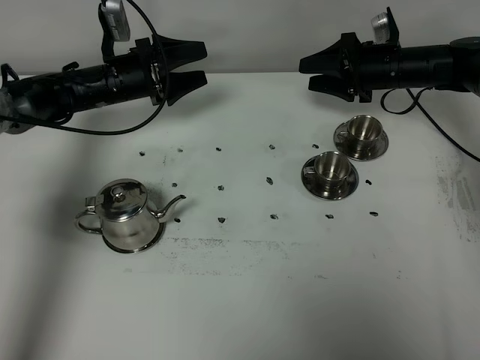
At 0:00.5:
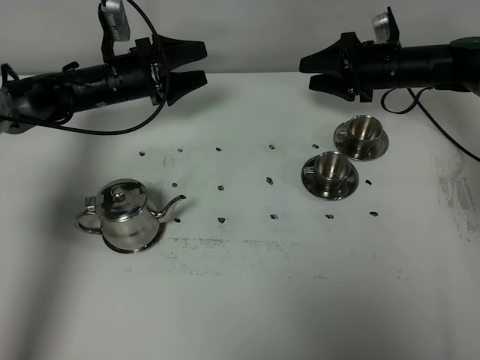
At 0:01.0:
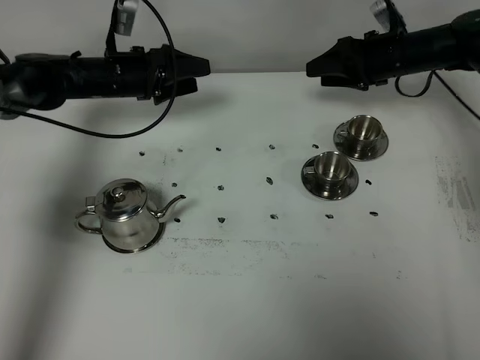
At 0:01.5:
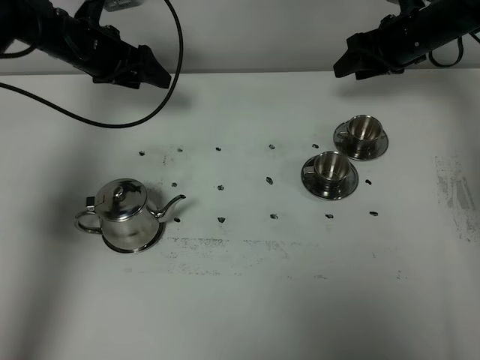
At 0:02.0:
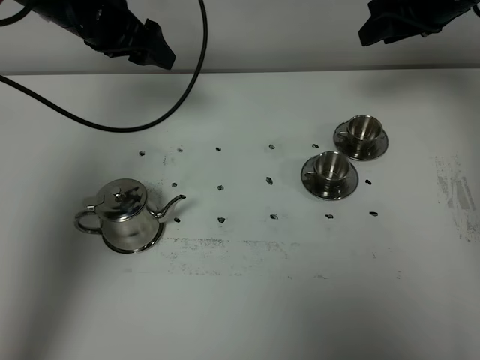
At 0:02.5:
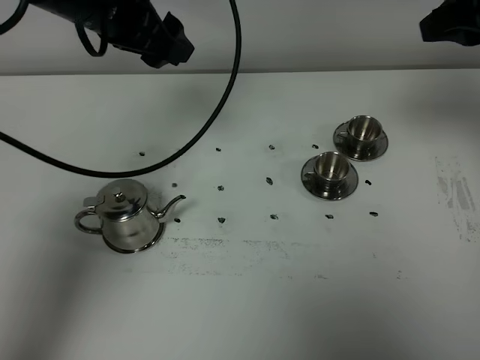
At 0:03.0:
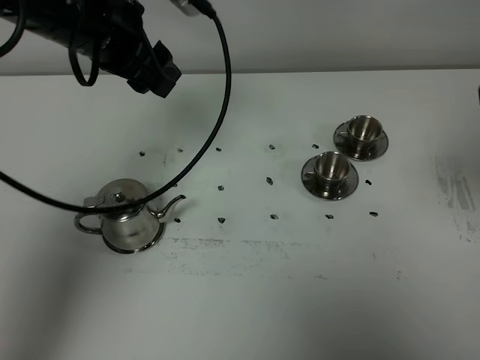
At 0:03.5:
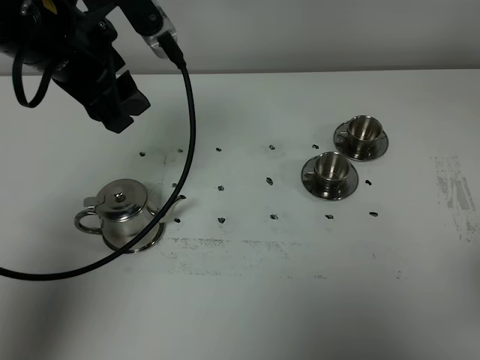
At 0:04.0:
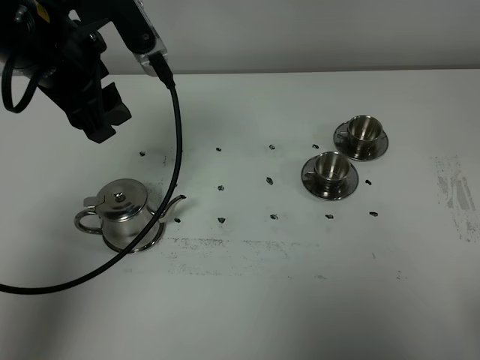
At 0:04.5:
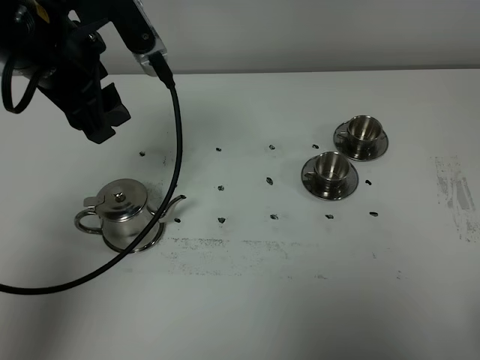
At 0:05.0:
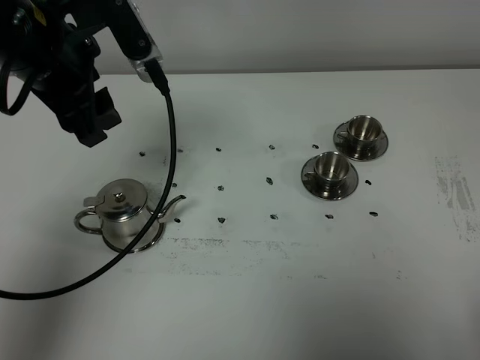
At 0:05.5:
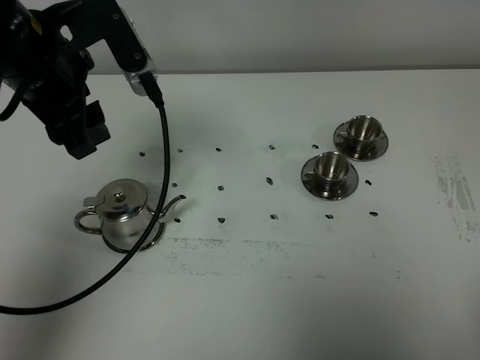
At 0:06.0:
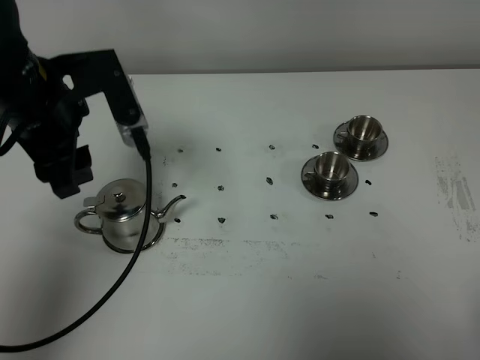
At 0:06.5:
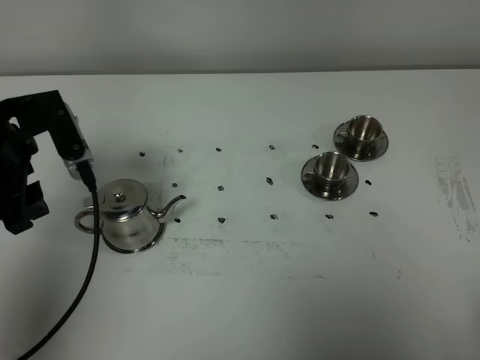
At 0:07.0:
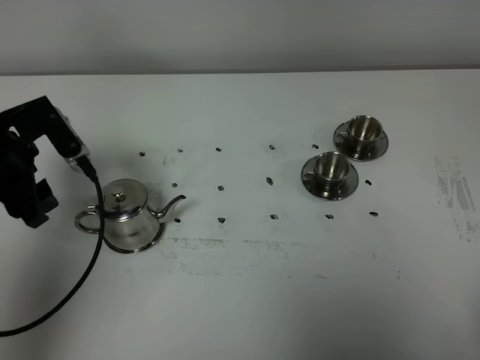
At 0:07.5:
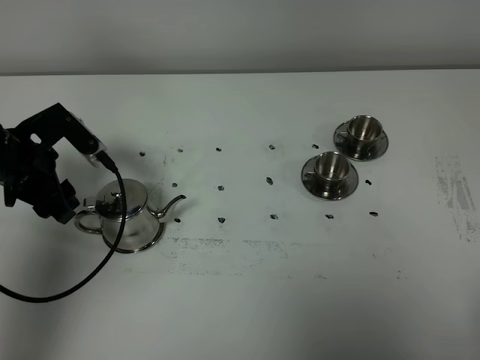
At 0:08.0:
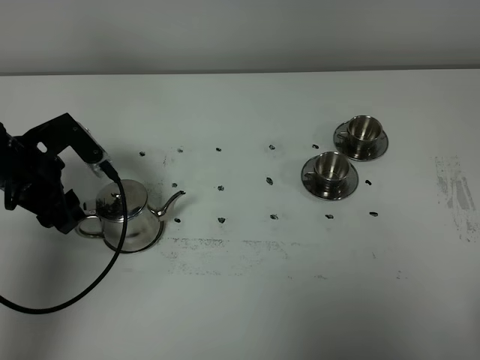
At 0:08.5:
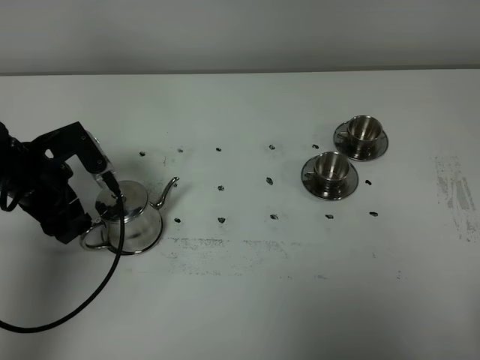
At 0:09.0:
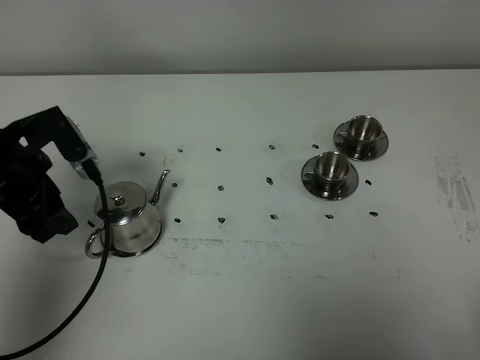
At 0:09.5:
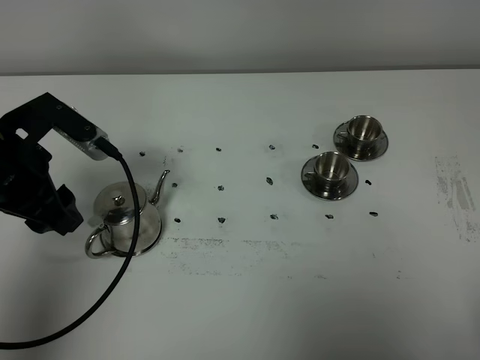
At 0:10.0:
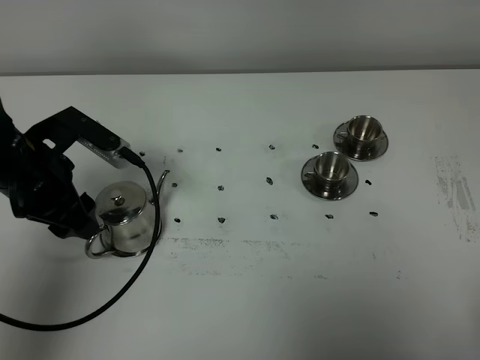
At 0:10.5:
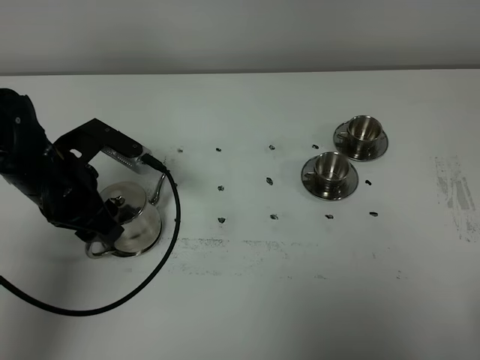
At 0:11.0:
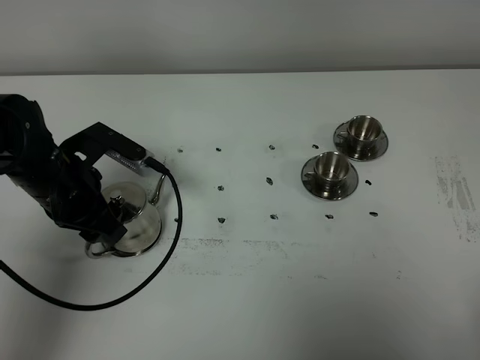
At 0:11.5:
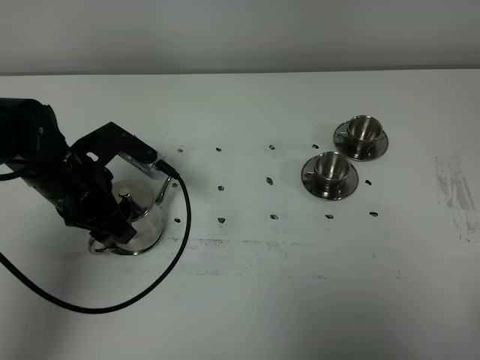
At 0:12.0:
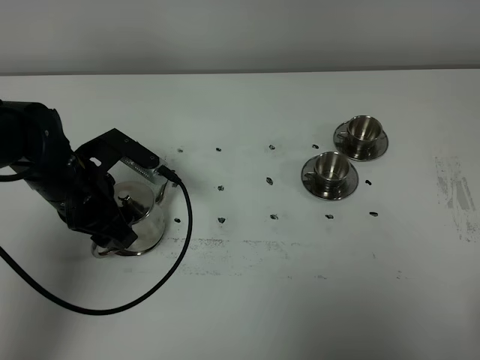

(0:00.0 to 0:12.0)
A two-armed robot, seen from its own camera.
Task of the whole recording: grasp the stainless steel teapot and pour the tea into the two stainless steel teacups one by one, put the stainless steel teapot back in its original place.
0:00.0 - 0:02.0: The grippers both shift upward by about 15 cm.
0:02.0 - 0:04.0: The left gripper goes roughly 15 cm backward and upward. The right gripper shifts approximately 40 cm backward.
0:04.0 - 0:06.0: The right gripper closes its fingers. Meanwhile the left gripper goes approximately 5 cm downward.
0:06.0 - 0:08.0: The left gripper is displaced downward and to the left by roughly 15 cm.
0:08.0 - 0:10.0: The left gripper shifts by about 10 cm.
0:10.0 - 0:12.0: The left gripper ends up roughly 5 cm from where it was.

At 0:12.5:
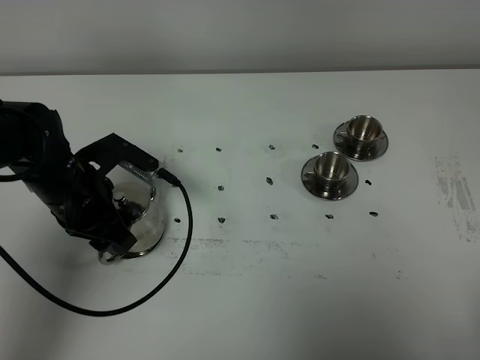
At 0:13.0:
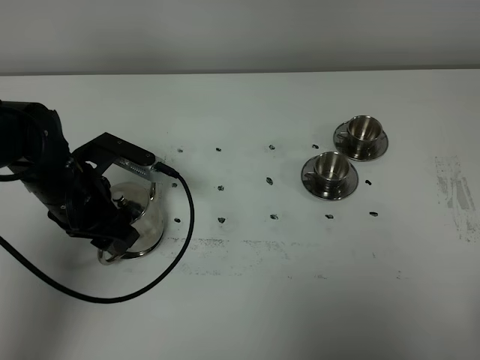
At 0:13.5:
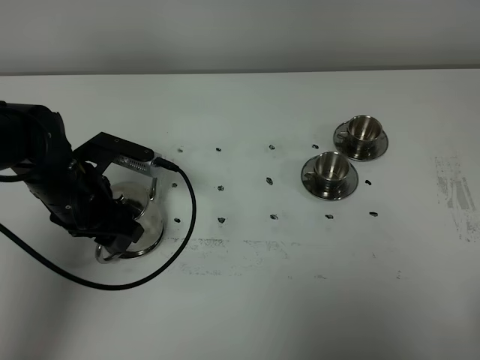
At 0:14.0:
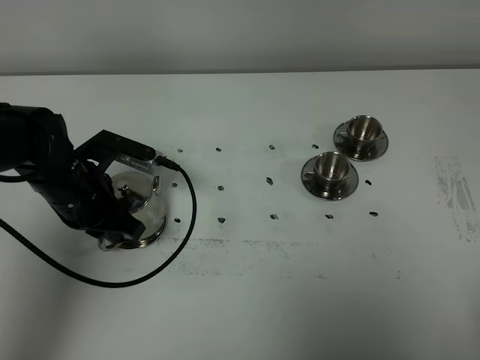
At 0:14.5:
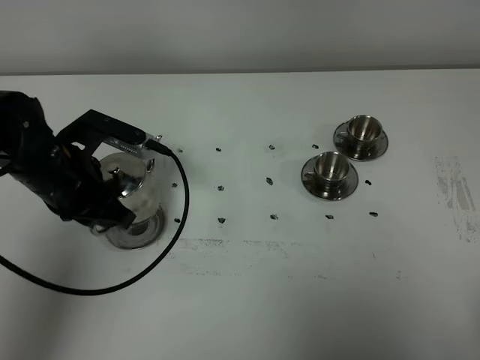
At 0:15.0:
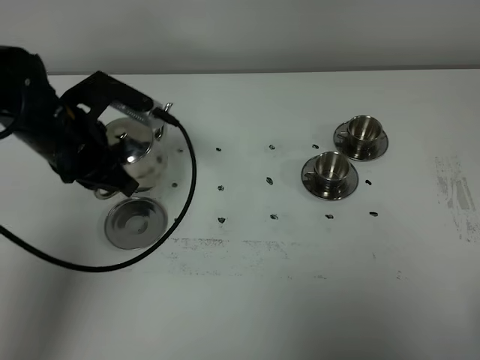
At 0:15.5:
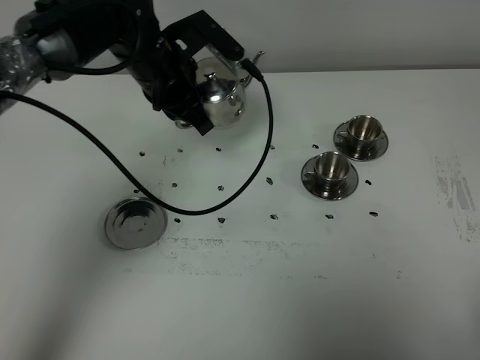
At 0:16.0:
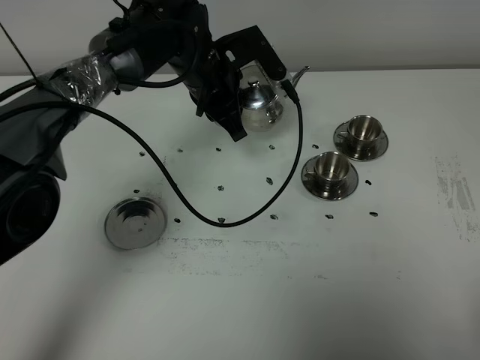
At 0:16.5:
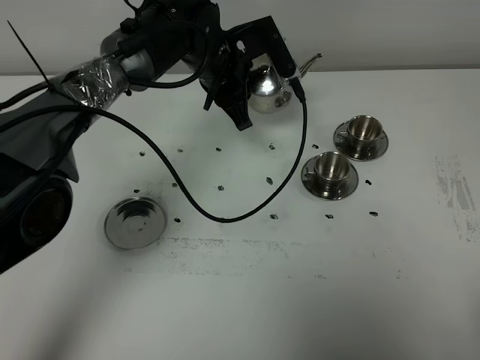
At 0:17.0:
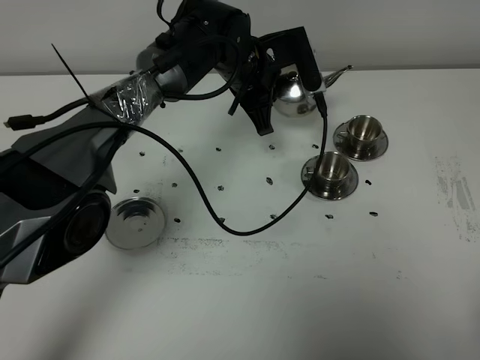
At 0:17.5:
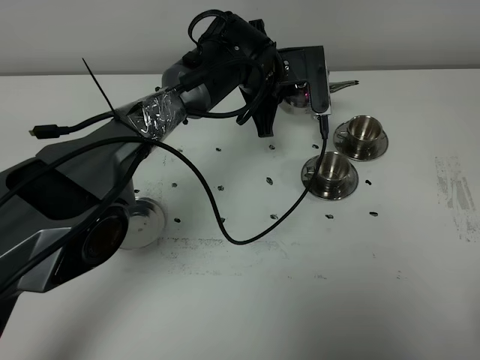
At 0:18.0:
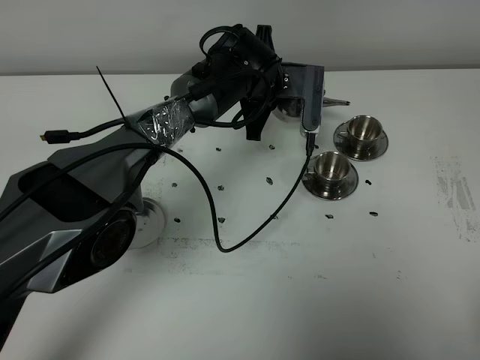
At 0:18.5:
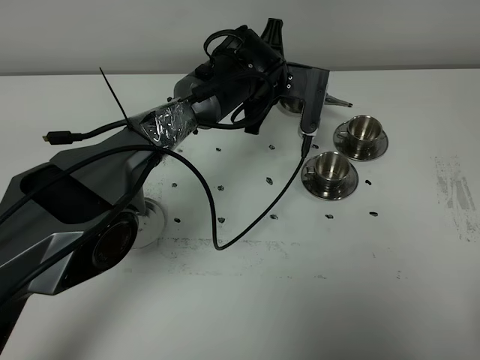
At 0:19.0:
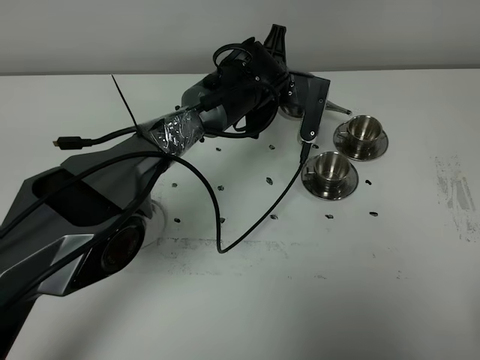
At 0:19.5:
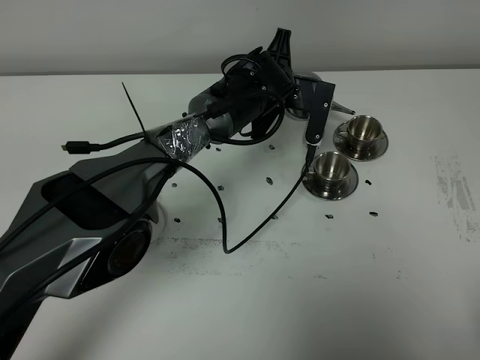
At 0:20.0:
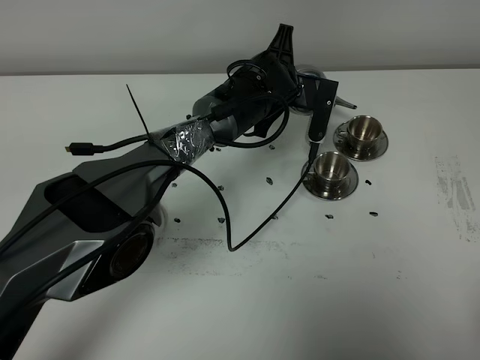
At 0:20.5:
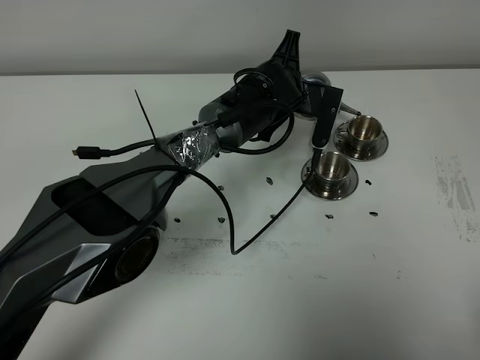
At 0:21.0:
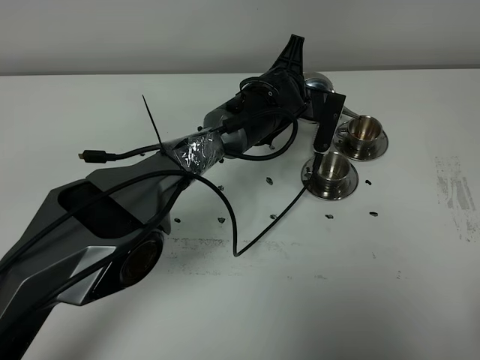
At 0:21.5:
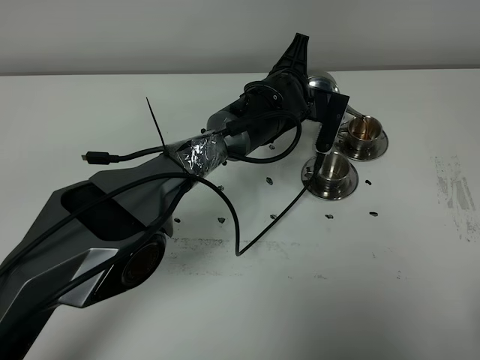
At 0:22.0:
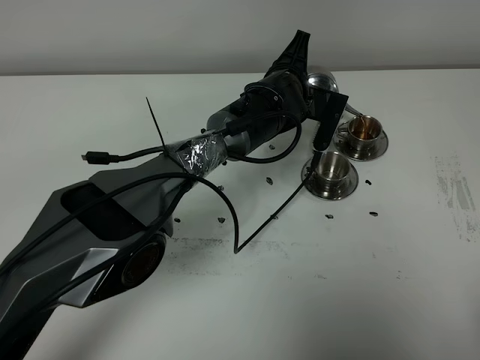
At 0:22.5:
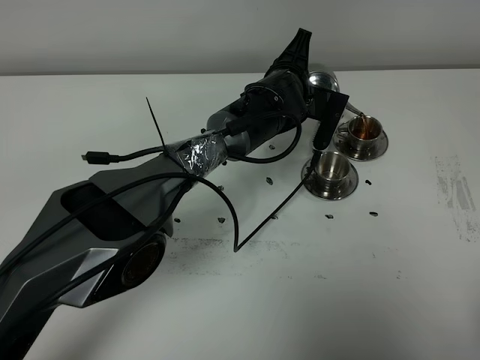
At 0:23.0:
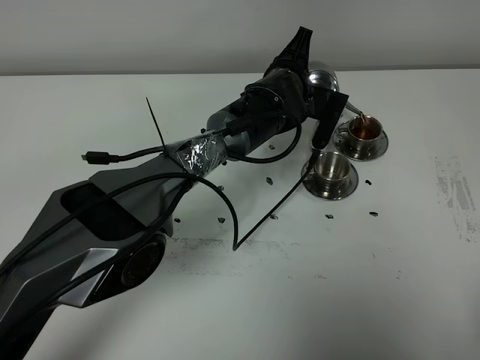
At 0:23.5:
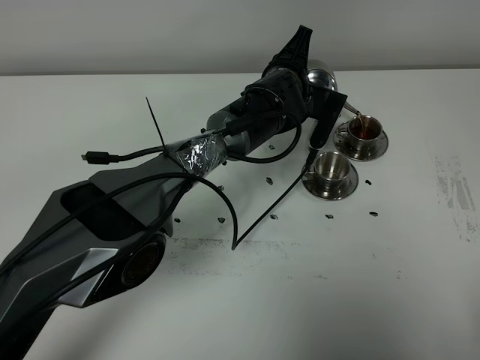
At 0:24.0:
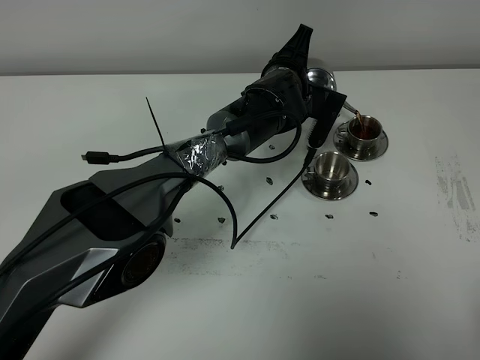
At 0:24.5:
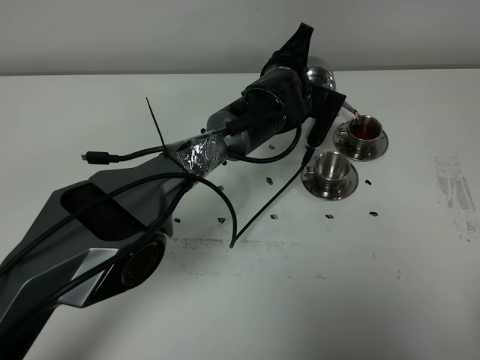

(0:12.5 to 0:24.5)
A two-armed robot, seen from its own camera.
Task of the whole recording: grasp the stainless steel teapot and pour the tea into the two stainless steel teacups one by one, put the stainless steel teapot back in its original place.
0:12.5 - 0:14.5: The left gripper closes up.
0:14.5 - 0:16.5: The left gripper shifts approximately 25 cm to the right and forward.
0:16.5 - 0:18.5: The left gripper heads to the right, covering some 5 cm.
0:20.5 - 0:24.5: The grippers make only small movements.

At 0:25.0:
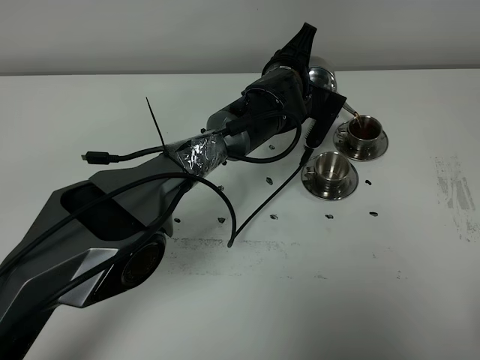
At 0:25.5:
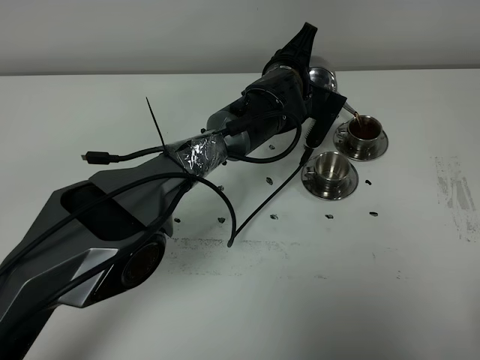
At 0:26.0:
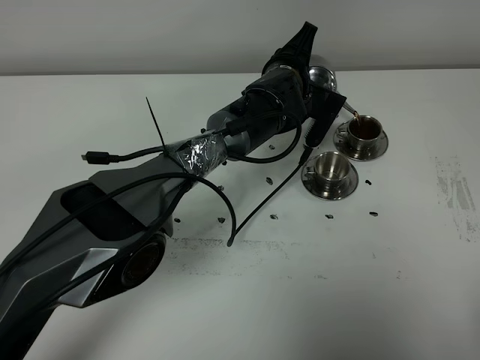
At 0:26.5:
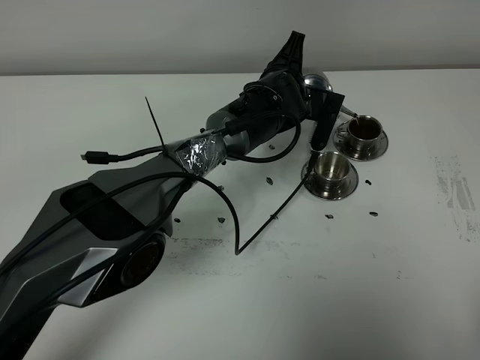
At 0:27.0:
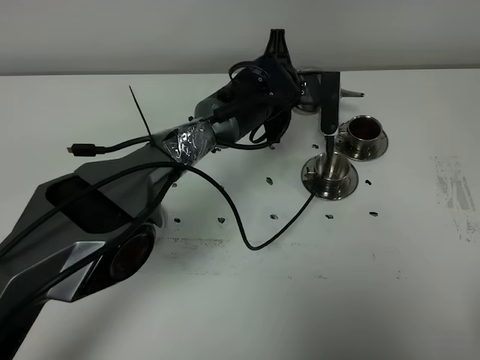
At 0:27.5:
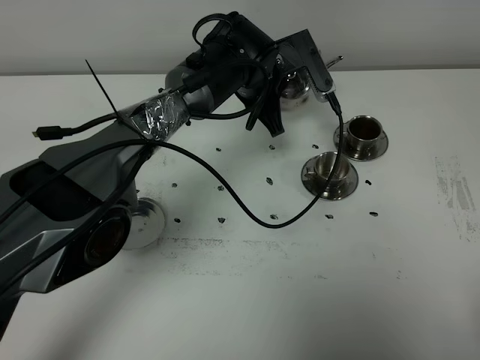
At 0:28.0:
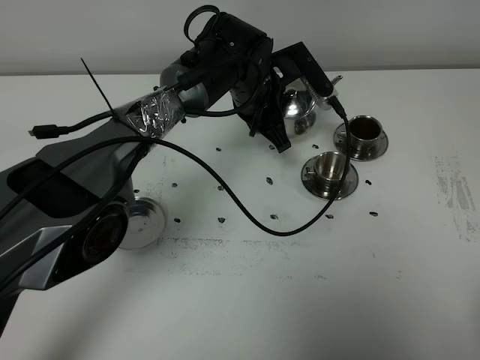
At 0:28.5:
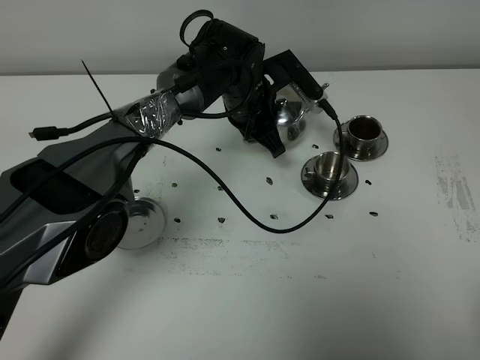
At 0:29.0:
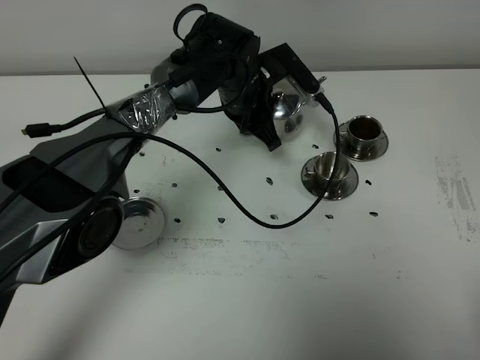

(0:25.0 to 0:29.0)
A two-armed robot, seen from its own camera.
Task of the whole recording: grasp the stainless steel teapot and pour the tea into the two stainless steel teacups one by one, put the stainless steel teapot back in its original place.
0:27.0 - 0:29.0: The left gripper ends up some 5 cm from where it was.
